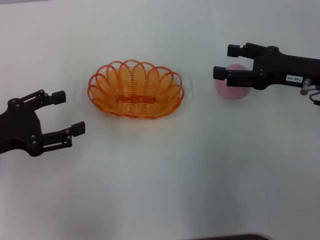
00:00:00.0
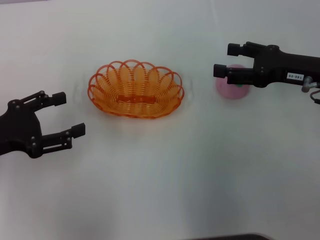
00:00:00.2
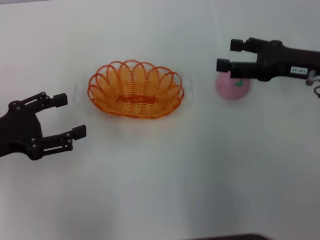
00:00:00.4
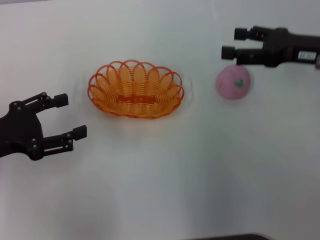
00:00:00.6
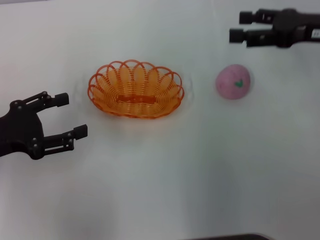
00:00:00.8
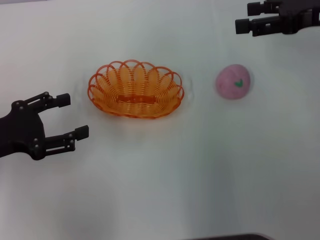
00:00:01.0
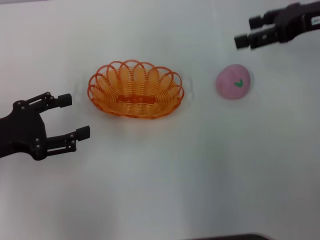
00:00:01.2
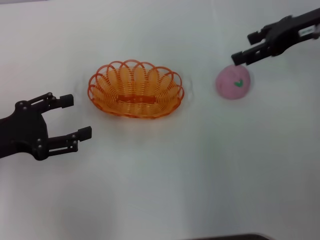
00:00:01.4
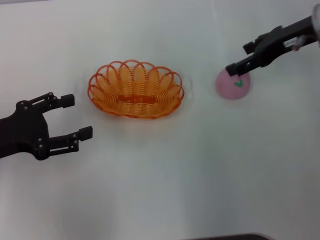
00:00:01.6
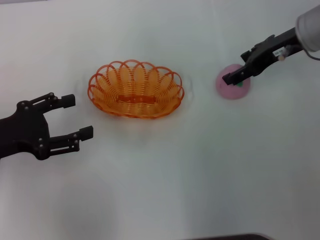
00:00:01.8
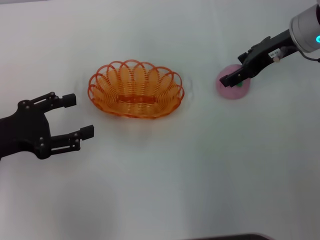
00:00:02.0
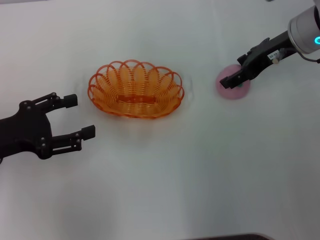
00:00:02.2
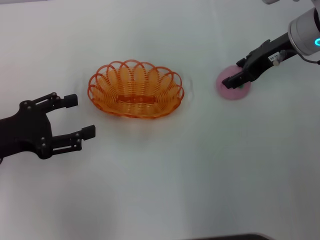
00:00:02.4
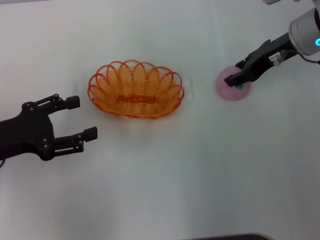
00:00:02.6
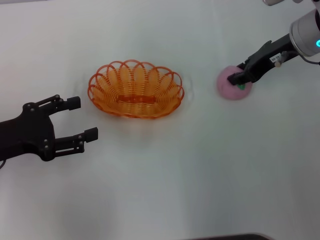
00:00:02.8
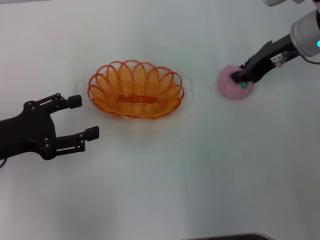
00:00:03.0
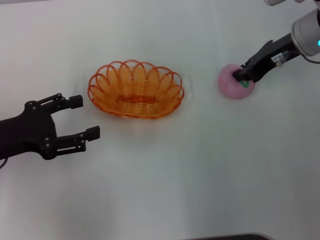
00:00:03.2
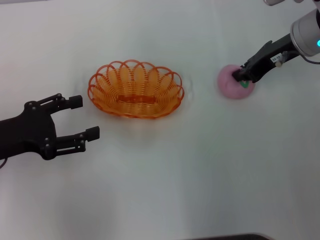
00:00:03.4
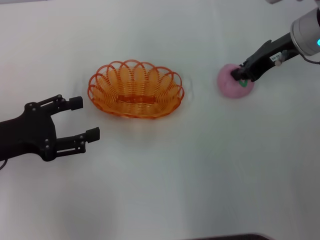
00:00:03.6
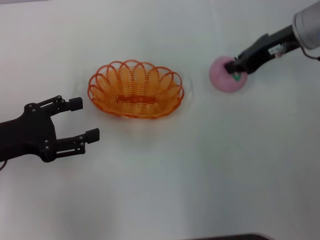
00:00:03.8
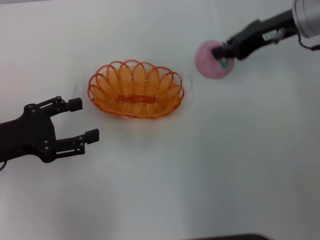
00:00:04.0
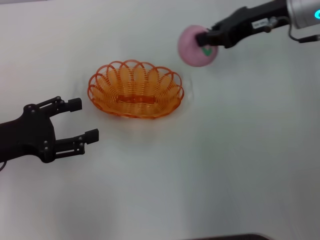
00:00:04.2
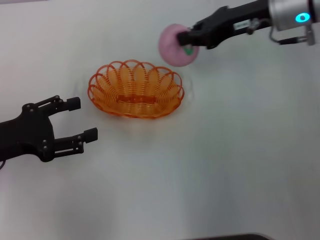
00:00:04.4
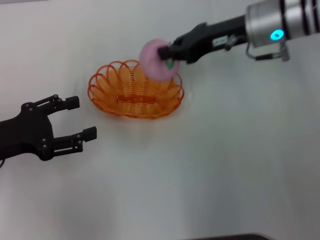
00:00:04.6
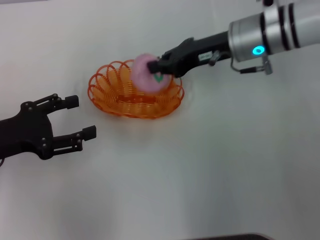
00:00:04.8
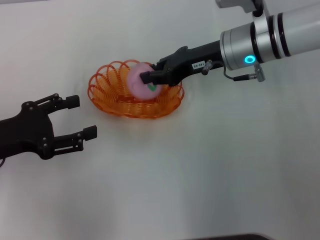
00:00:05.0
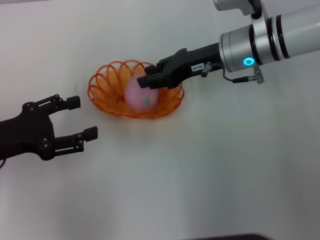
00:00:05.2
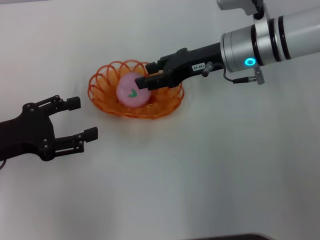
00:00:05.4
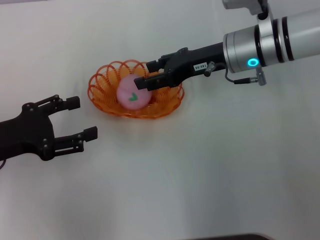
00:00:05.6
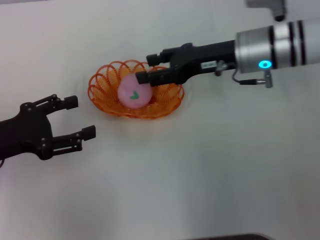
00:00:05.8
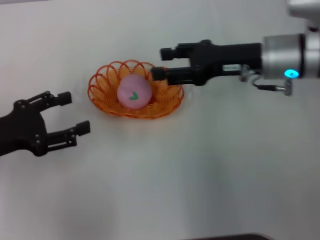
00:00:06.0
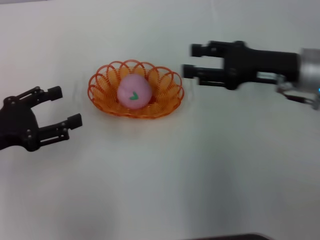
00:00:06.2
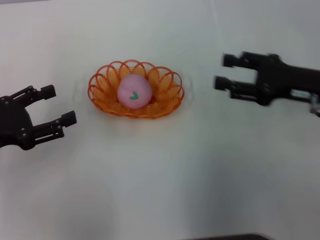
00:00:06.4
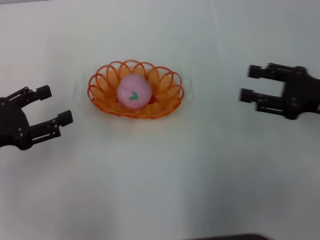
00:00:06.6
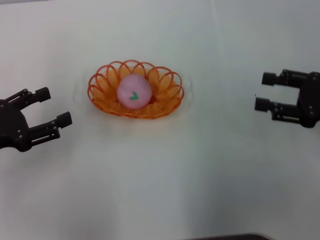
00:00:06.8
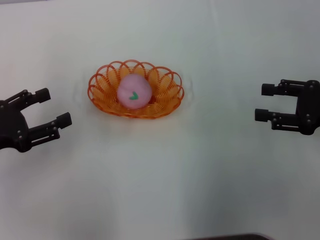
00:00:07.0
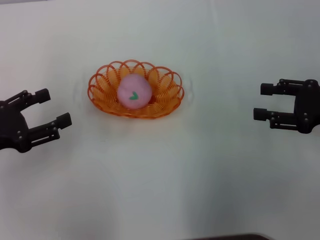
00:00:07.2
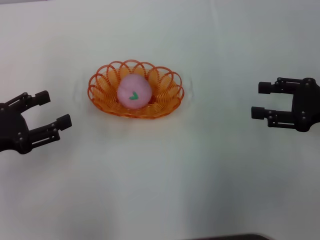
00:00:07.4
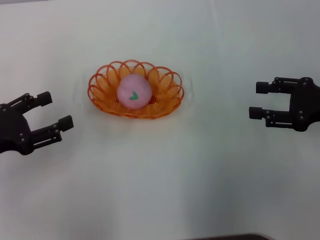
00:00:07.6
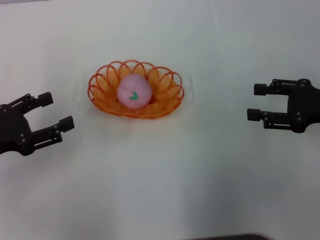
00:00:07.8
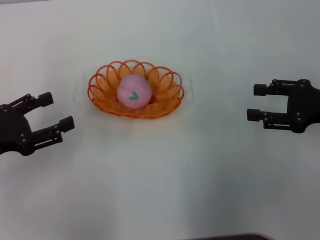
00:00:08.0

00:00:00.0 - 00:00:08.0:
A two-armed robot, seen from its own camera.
Step, 00:00:00.0 - 00:00:04.2: Pick up the peach with the right gripper.
Step, 00:00:04.4 - 00:00:06.2: Place the peach into the basket with the right gripper.
00:00:00.0 - 00:00:01.6: The right gripper is displaced forward and upward by roughly 10 cm.
00:00:01.6 - 00:00:03.2: The right gripper closes its fingers.
00:00:03.2 - 00:00:04.8: The right gripper heads to the left, covering some 10 cm.
00:00:04.8 - 00:00:06.4: The right gripper moves to the right and backward, some 15 cm, and opens up.
